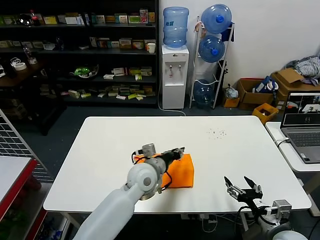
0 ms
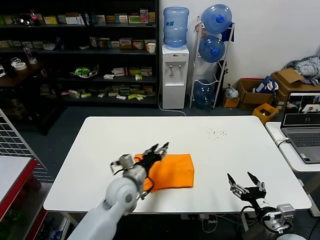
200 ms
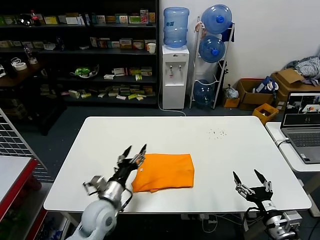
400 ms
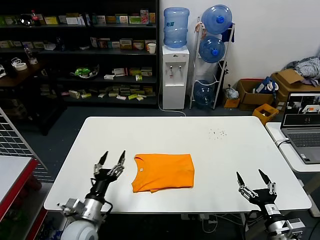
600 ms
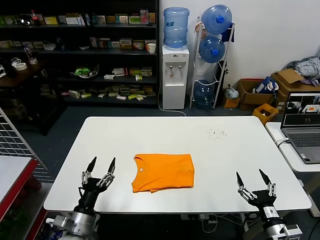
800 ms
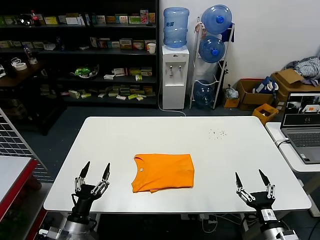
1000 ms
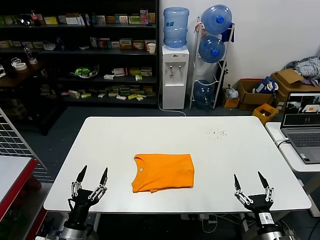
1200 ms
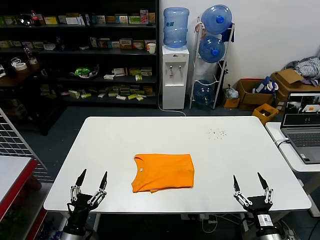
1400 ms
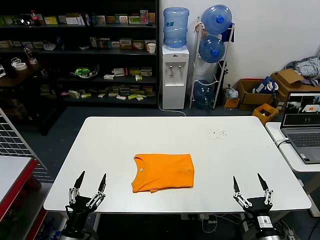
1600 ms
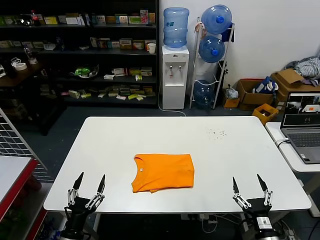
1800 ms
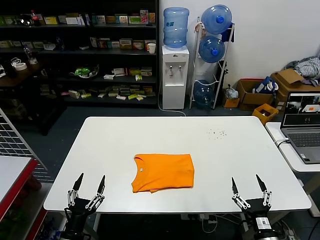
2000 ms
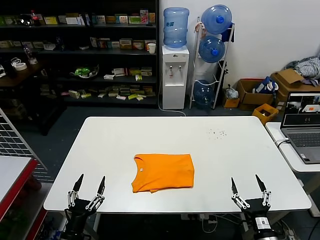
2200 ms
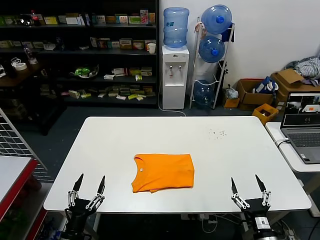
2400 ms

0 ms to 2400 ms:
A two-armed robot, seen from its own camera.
Task of the whole recording: fold and organize the clothes.
0 ms to 1200 ms: The right gripper goes approximately 5 cm downward, while the left gripper moves to the left, backward and downward, roughly 35 cm, and opens up.
1200 ms to 2400 ms: The grippers move only a little.

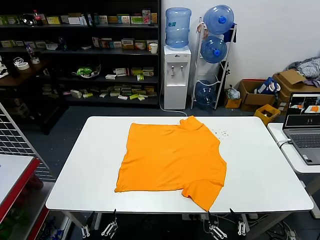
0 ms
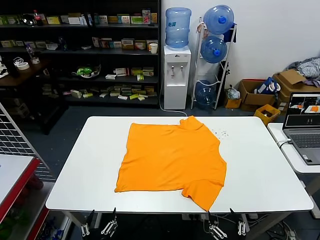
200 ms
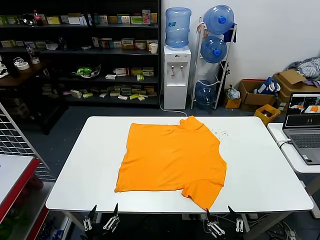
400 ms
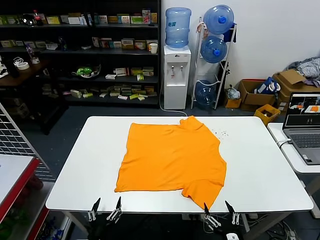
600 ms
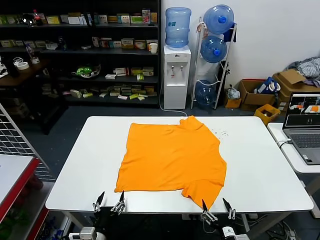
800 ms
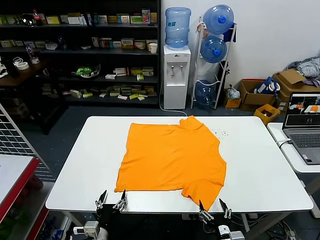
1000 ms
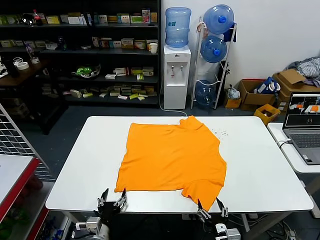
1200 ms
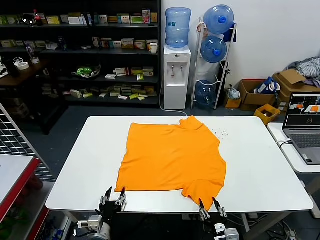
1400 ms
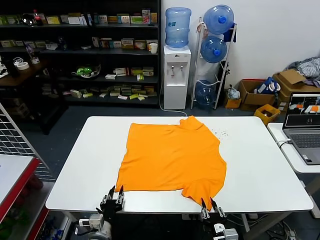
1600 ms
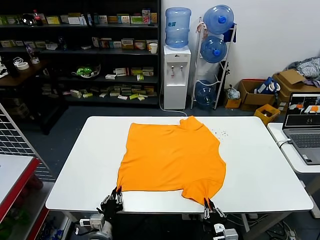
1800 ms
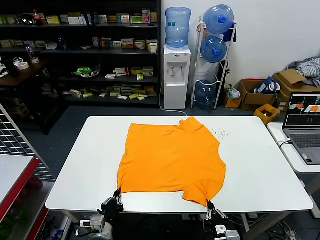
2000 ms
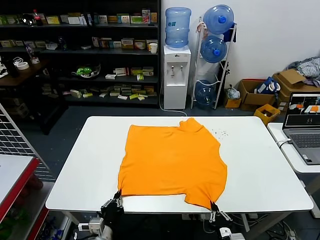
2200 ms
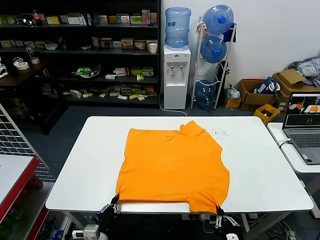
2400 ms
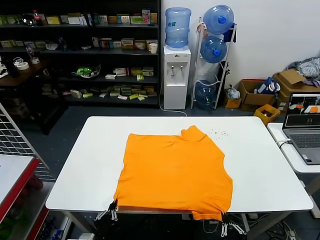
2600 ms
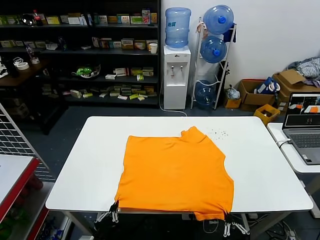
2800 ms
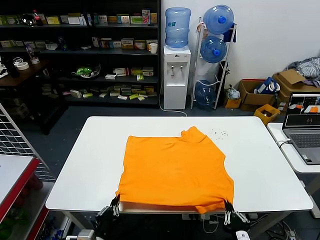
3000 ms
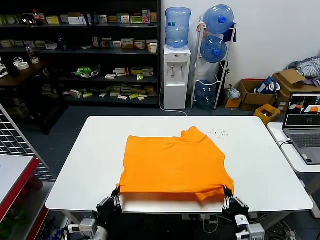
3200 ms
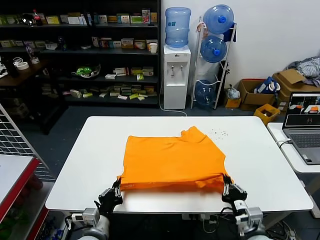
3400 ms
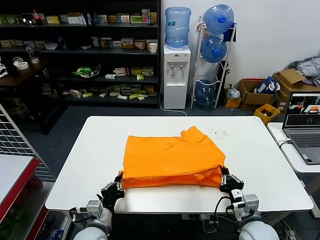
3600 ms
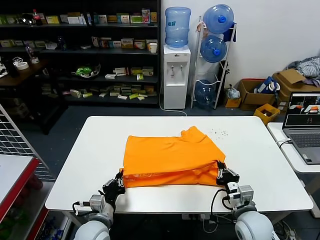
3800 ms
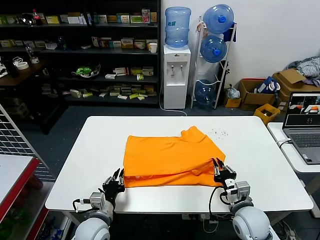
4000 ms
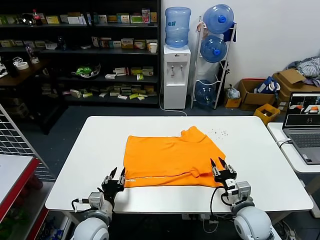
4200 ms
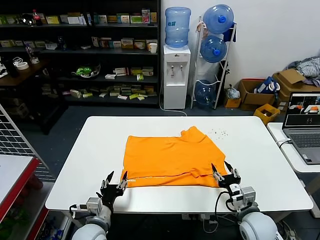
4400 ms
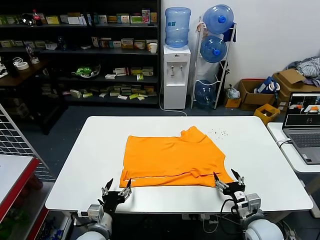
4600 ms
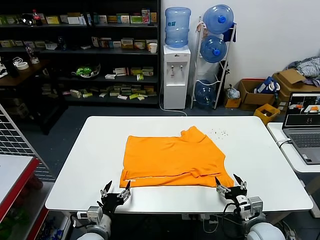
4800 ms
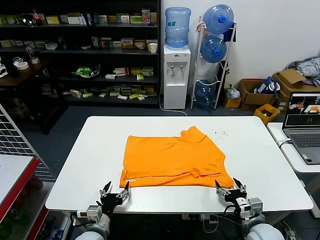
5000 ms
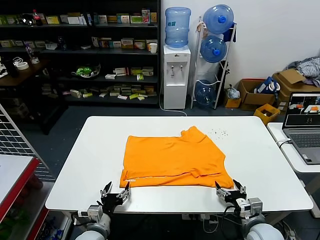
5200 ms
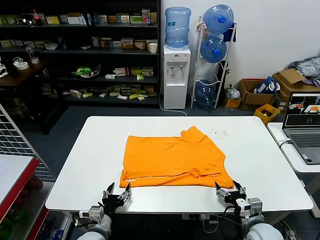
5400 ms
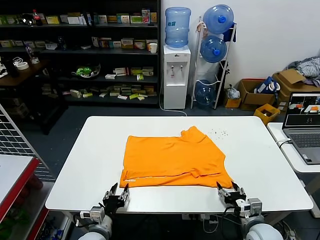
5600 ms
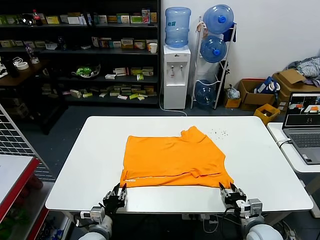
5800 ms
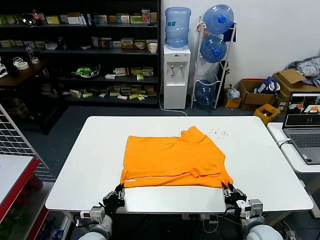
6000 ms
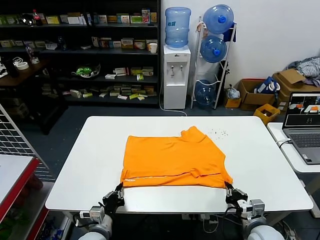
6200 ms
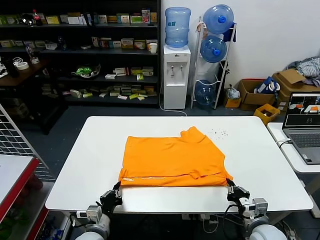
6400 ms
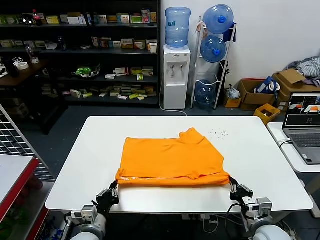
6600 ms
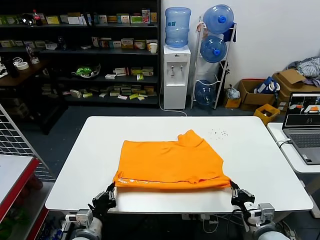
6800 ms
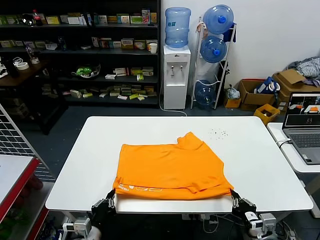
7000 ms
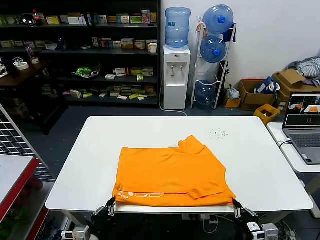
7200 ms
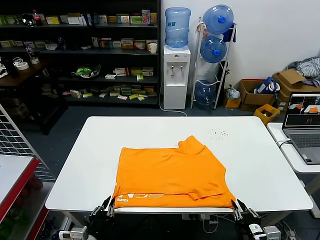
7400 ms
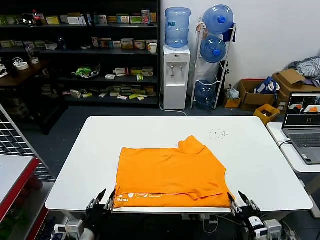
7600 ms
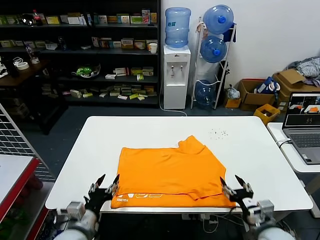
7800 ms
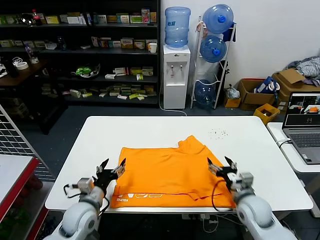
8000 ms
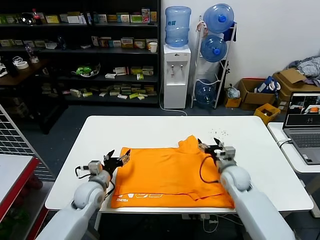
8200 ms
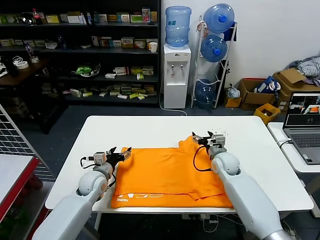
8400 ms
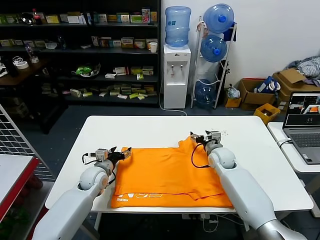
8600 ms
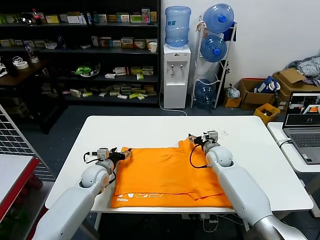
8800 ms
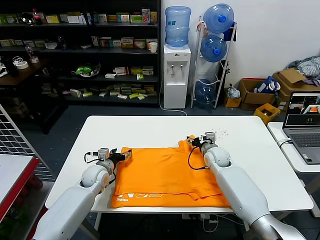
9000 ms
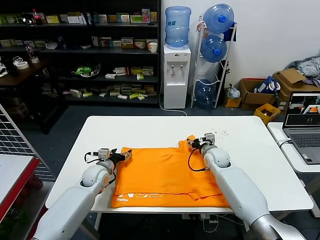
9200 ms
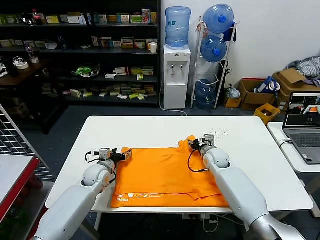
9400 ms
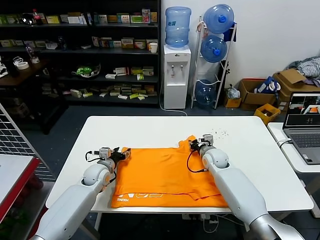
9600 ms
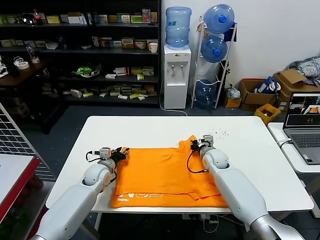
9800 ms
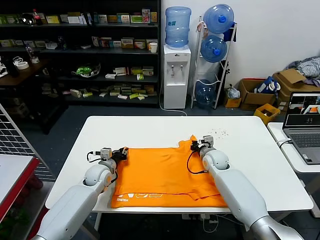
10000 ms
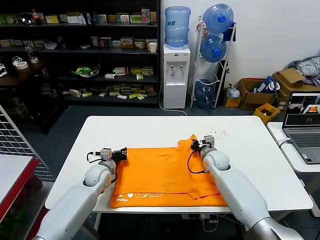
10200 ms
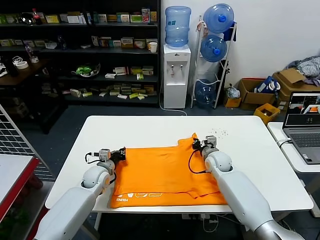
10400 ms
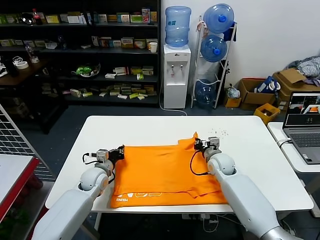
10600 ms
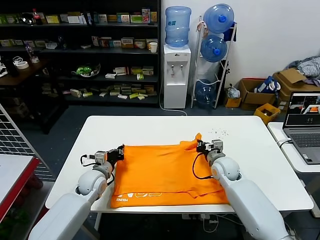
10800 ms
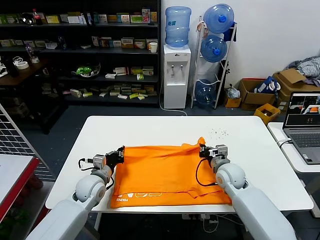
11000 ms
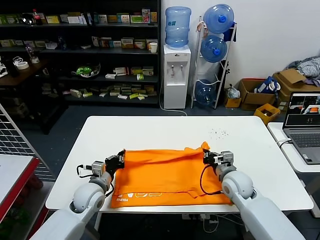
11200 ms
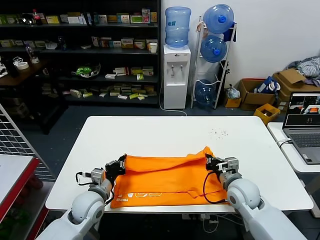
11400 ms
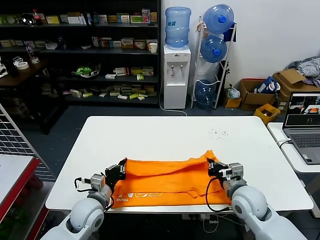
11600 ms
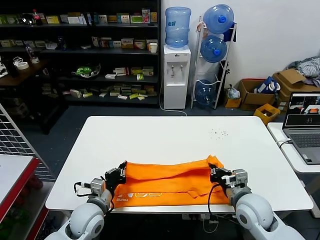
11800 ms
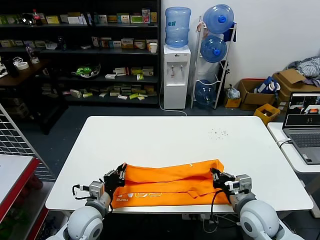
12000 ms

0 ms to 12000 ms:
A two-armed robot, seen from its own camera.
Task of the whole recording: fold and organize the clothes.
Step, 0 ms to 1800 ms: use both grippers simultaneously to clamp the lower edge of the clothing fabric.
Step, 2000 ms to 4000 ms: use both grippers to drag the lower edge of the fabric forward and fold it over the upper edge.
Step, 4200 ms to 7200 ms: Drag the clothes downward with both gripper.
Step, 7600 ms to 10000 ms: use both grippers simultaneously to clamp the upper edge of the clothing fabric.
1600 ms to 3000 ms: The left gripper shifts roughly 10 cm upward and backward, and closes. Meanwhile the right gripper travels upward by some 5 cm.
3000 ms to 4400 ms: The grippers both shift forward by roughly 10 cm. The right gripper opens its fingers. The left gripper opens up.
4400 ms to 6000 ms: The right gripper closes up. Meanwhile the left gripper closes up.
6000 ms to 7600 ms: The right gripper is displaced backward and upward by approximately 10 cm, and opens its fingers. Meanwhile the left gripper is displaced upward and backward by about 10 cm, and opens.
7600 ms to 9000 ms: Both grippers move forward, some 30 cm. The left gripper opens its fingers, while the right gripper opens.
9000 ms to 10400 ms: The left gripper closes; the right gripper closes its fingers.
10400 ms to 12000 ms: The two grippers go some 20 cm backward.

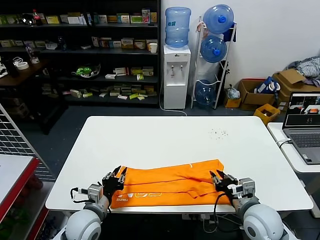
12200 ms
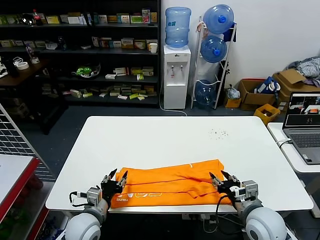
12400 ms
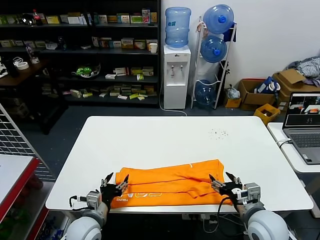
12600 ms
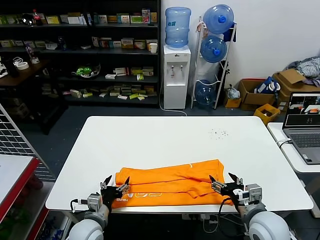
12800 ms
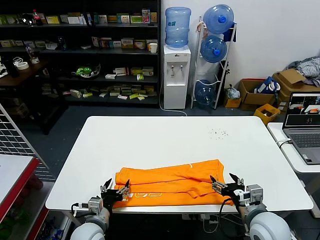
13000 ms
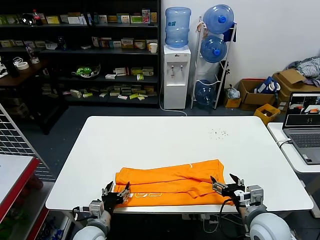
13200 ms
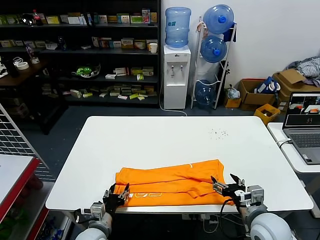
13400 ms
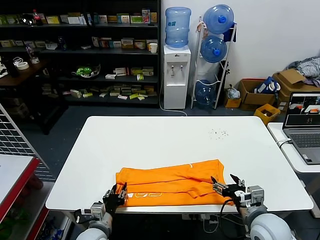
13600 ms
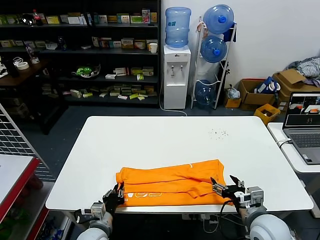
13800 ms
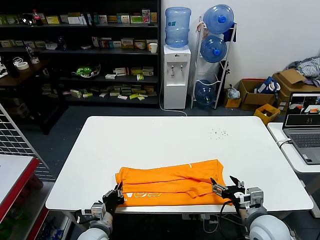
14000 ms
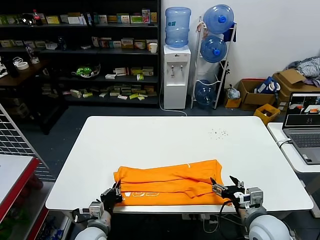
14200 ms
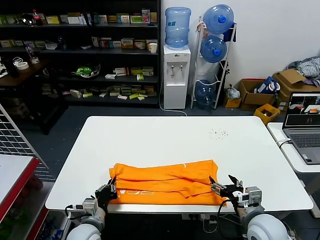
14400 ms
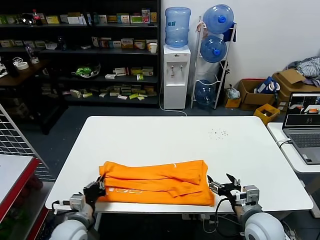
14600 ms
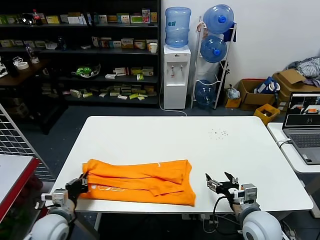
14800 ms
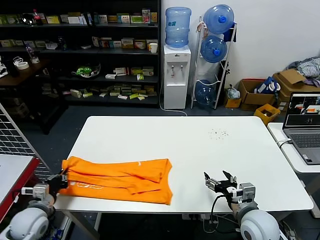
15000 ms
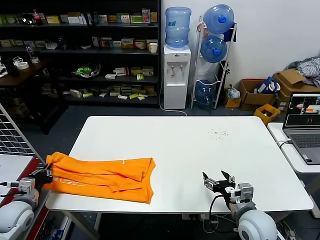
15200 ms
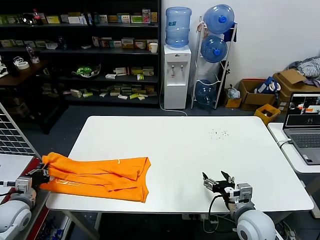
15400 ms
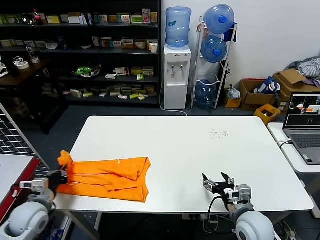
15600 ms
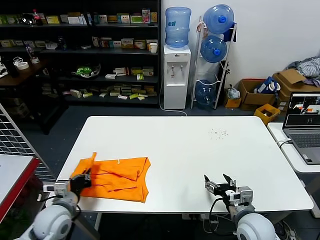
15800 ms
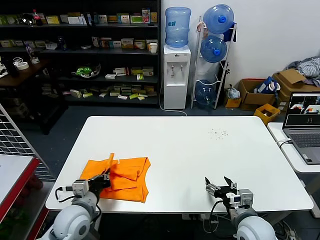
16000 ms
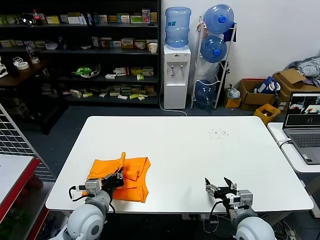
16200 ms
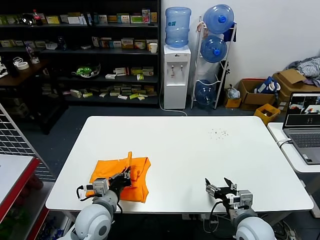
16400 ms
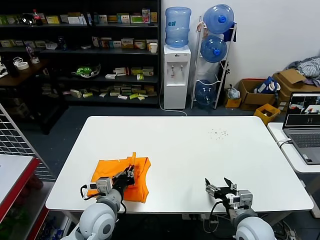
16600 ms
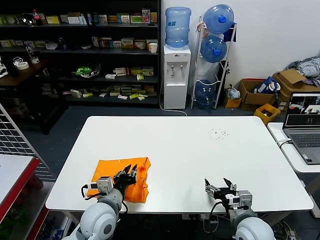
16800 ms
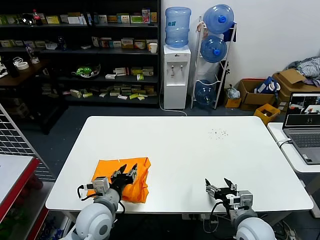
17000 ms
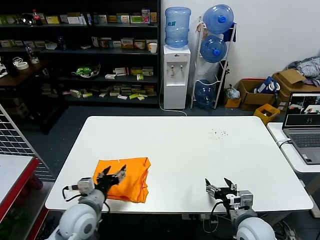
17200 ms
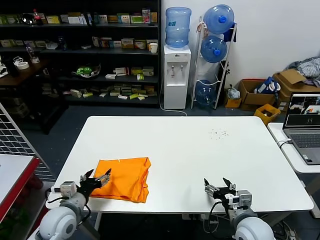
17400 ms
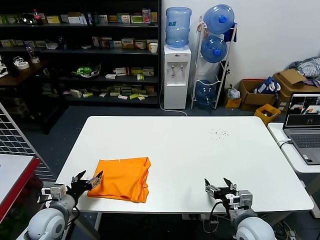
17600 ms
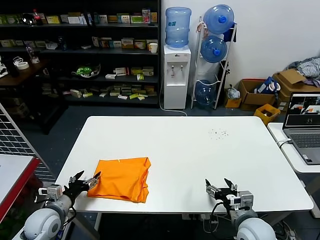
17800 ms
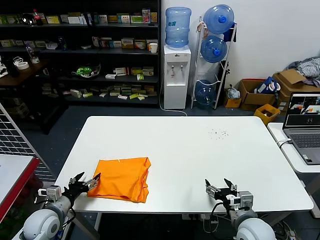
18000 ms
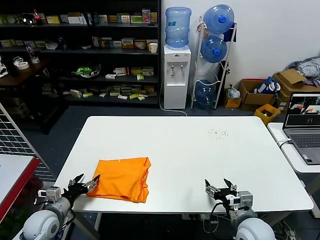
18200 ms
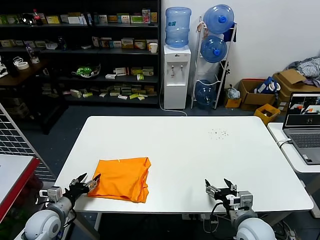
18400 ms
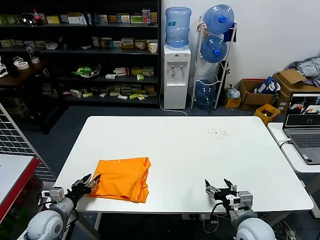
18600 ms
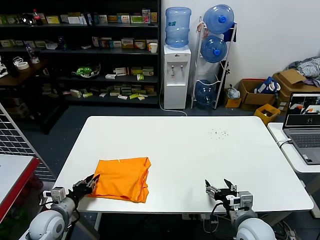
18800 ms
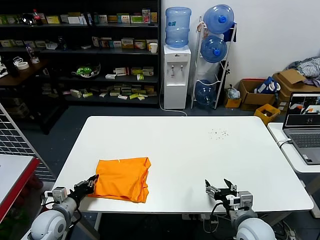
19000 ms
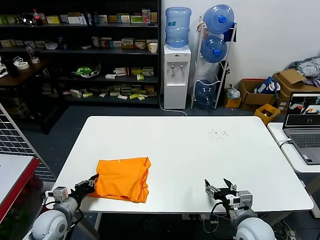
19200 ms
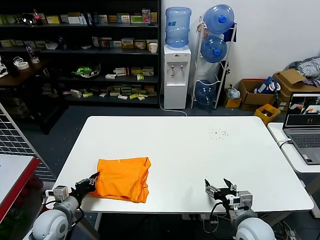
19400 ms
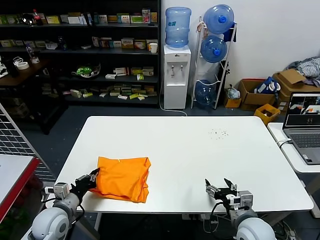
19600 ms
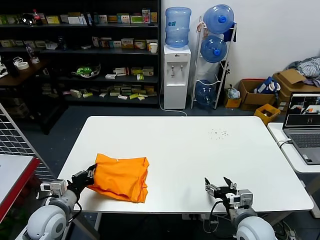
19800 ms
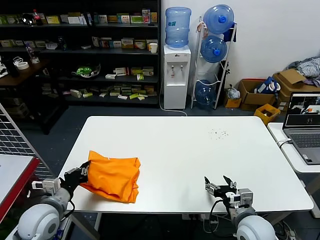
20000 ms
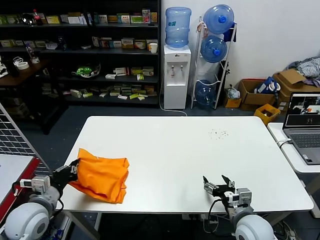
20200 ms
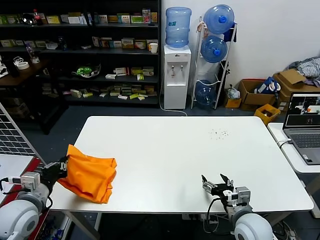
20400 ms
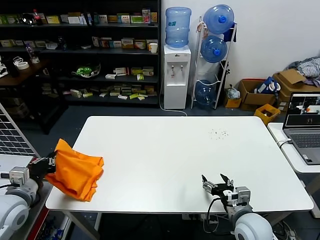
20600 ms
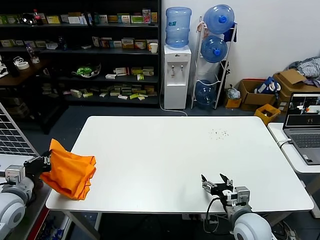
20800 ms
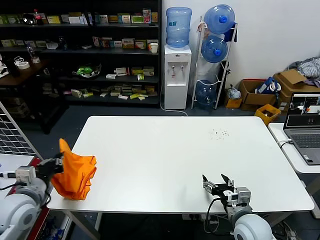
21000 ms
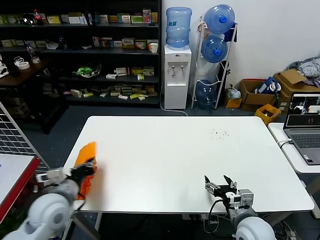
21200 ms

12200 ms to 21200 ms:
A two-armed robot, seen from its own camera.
Task of the whole recording: fold and organize the clothes.
Step, 12200 ms to 13800 ms: use the left gripper to clamp the left edge of the fabric.
Step, 14200 ms to 16600 ms: use the left gripper to drag the left edge of the fabric to the left and folds it over the right edge.
12200 ms to 13800 ms: The left gripper heads downward, covering about 5 cm, and opens, then closes again, while the right gripper opens.
13800 ms to 15200 ms: The left gripper goes about 25 cm to the left.
15200 ms to 16600 ms: The left gripper is displaced to the right by about 25 cm.
16600 ms to 18200 ms: The left gripper travels to the left by roughly 20 cm, and opens up.
18200 ms to 19800 ms: The left gripper heads upward and to the right, covering approximately 10 cm, and closes.
19800 ms to 21200 ms: The left gripper moves upward, some 10 cm, and goes to the left and returns, about 10 cm each way.
